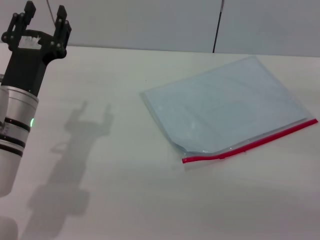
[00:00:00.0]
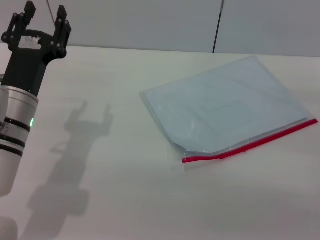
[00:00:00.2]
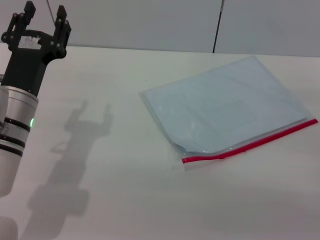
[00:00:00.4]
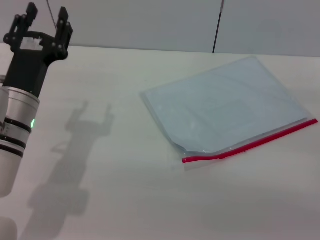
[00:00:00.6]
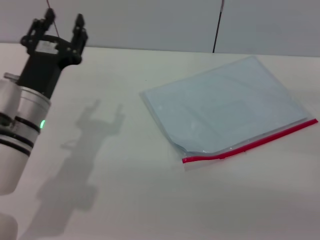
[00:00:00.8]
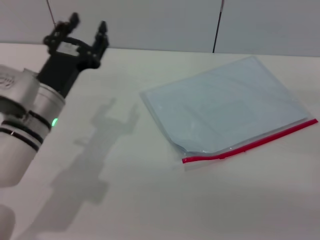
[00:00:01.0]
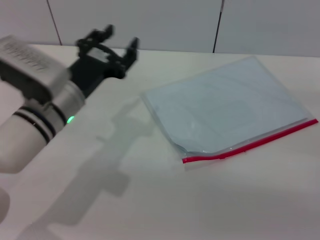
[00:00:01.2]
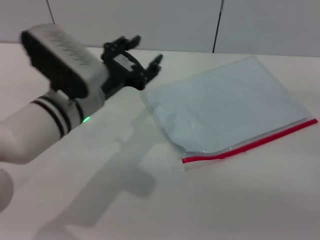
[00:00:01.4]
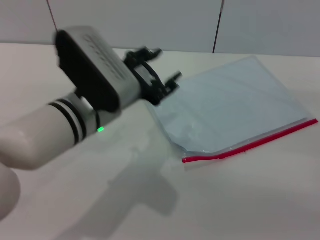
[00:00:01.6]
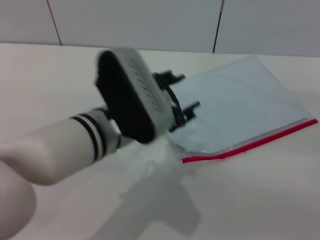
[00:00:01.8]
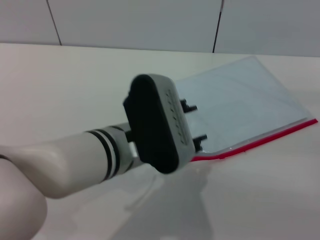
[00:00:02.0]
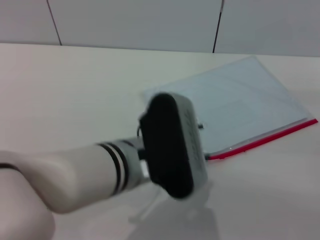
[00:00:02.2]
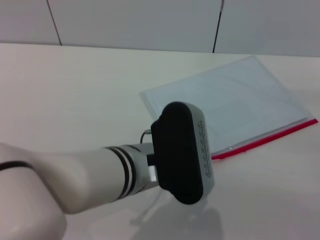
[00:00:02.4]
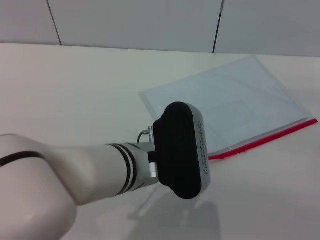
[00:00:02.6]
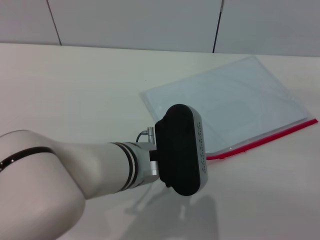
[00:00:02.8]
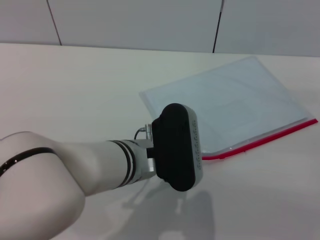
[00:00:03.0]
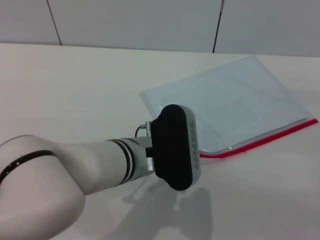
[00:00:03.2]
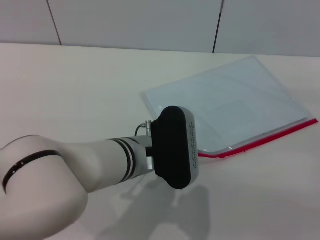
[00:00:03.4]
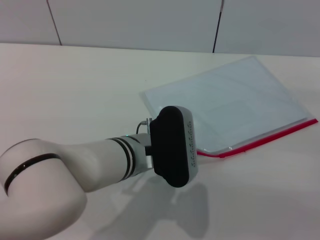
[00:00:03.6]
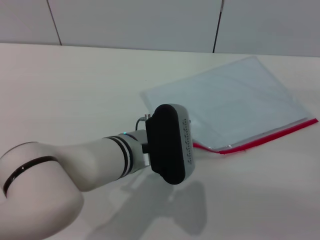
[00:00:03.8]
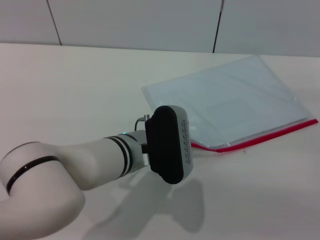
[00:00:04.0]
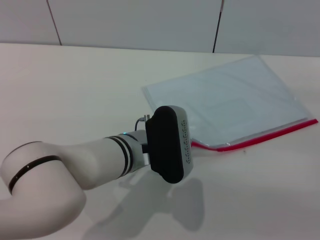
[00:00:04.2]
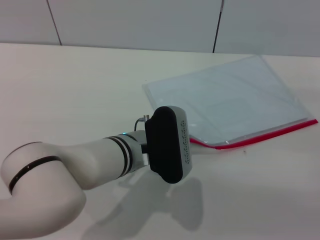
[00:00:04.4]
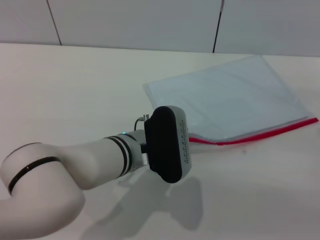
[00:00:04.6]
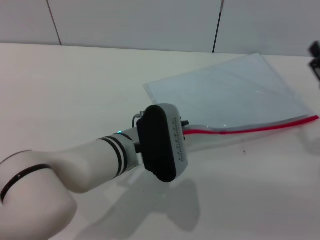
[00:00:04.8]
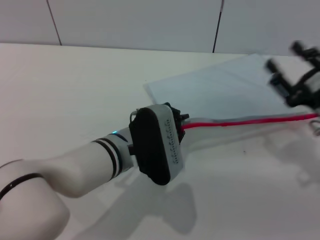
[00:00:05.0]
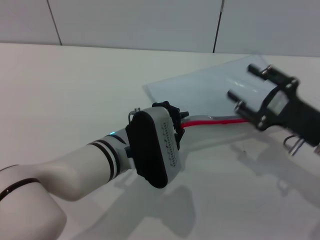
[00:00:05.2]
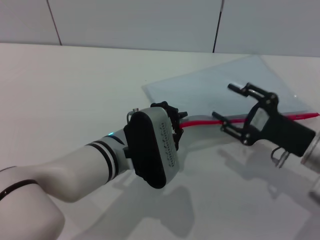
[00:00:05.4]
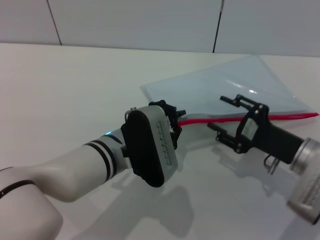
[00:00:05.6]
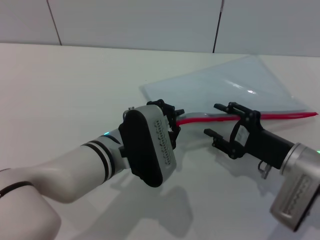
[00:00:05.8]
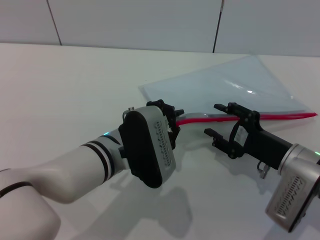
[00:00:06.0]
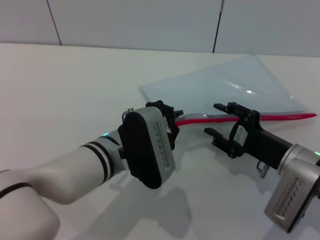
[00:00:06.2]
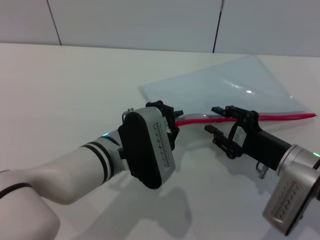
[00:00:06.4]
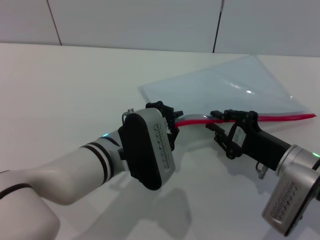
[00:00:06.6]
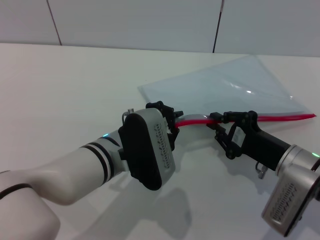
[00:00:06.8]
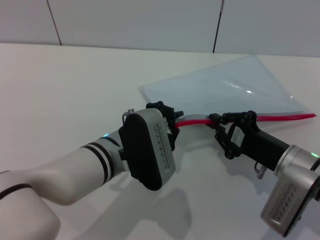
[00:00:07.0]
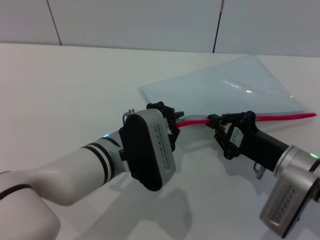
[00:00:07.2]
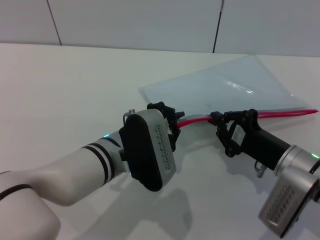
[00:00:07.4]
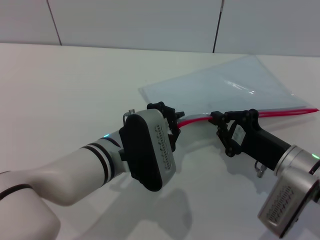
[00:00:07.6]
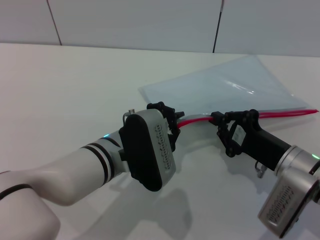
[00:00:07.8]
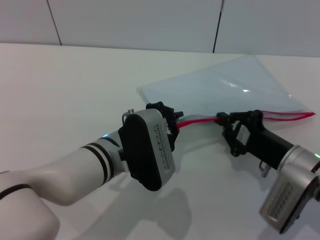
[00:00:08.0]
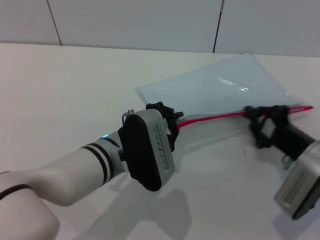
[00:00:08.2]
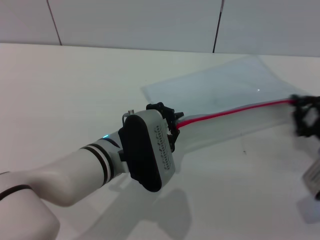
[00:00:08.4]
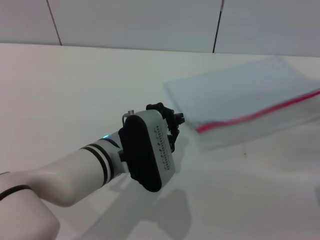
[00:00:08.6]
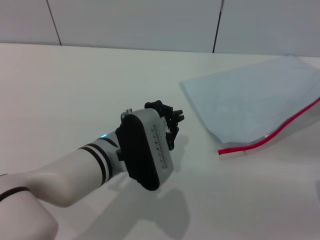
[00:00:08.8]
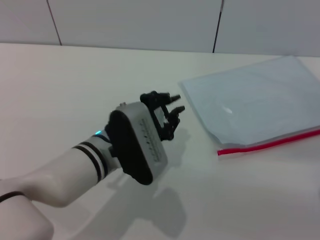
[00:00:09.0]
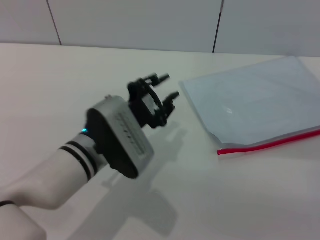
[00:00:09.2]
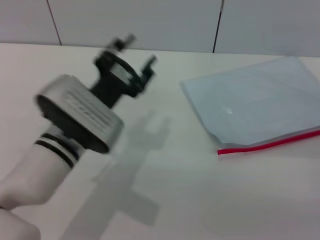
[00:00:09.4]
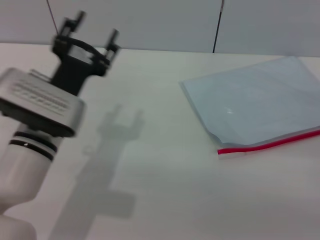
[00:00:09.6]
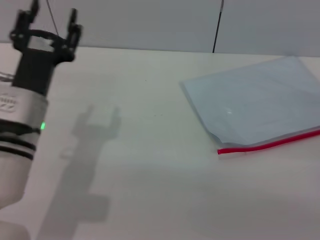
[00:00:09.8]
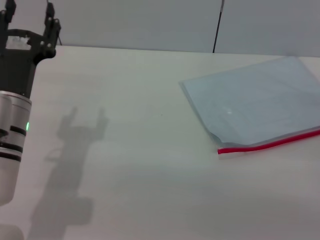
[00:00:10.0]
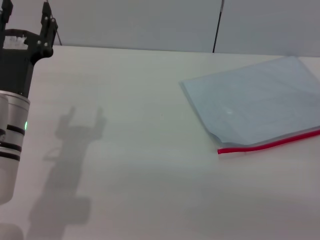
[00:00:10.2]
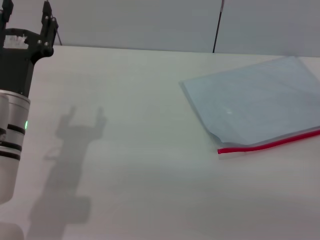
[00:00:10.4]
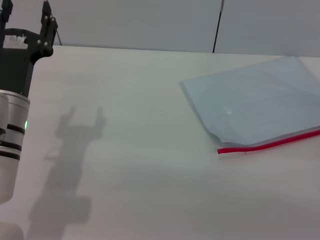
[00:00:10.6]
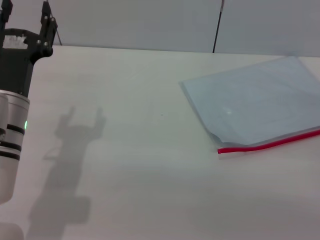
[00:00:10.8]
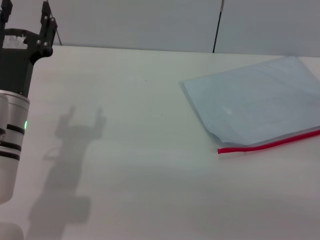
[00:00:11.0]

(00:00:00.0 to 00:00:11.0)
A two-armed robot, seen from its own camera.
Step, 00:00:00.0 - 00:00:05.4: Pick up the transparent plastic bag with the left gripper.
Step, 00:00:05.6 - 00:00:08.6: Pulling up the zipper on the transparent plastic bag with the right gripper to close it.
Step, 00:00:08.8 - 00:00:09.4: Place the transparent plastic bag.
00:00:00.0 - 00:00:01.6: The left gripper shifts roughly 10 cm to the right and upward.
00:00:01.6 - 00:00:03.2: The left gripper moves to the right, some 5 cm.
00:00:03.2 - 00:00:04.8: The left gripper closes up.
00:00:04.8 - 00:00:06.2: The right gripper goes roughly 10 cm to the left.
00:00:06.2 - 00:00:07.8: The right gripper closes.
00:00:07.8 - 00:00:09.4: The right gripper is displaced to the right by approximately 10 cm, and opens up, while the left gripper opens up.
00:00:09.4 - 00:00:11.0: The right gripper opens up. Meanwhile the left gripper heads to the left, covering roughly 10 cm, and opens up.
